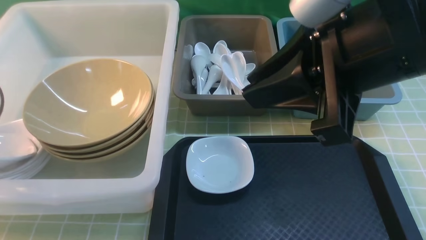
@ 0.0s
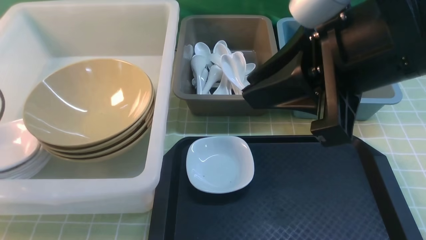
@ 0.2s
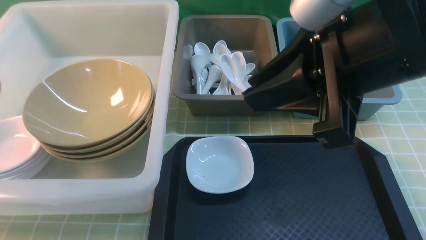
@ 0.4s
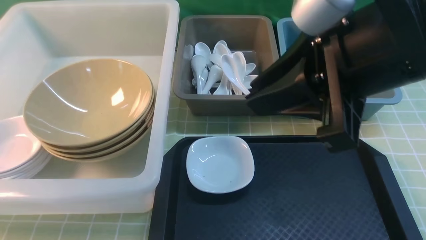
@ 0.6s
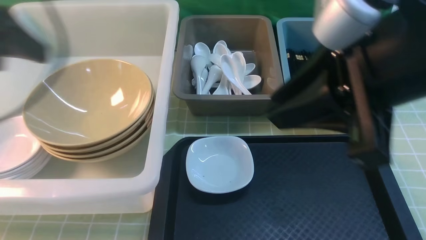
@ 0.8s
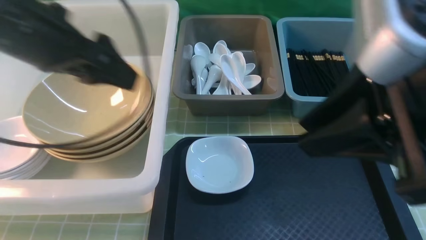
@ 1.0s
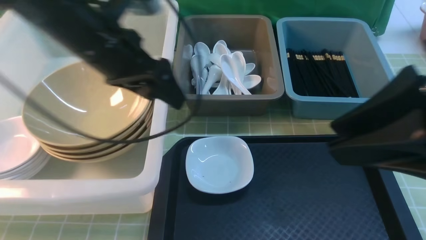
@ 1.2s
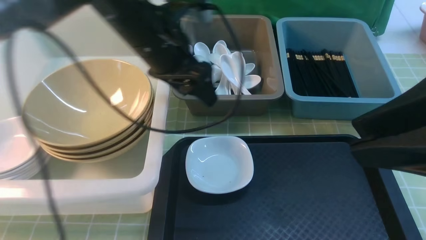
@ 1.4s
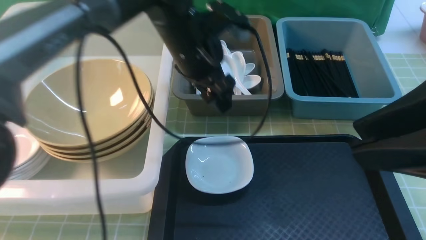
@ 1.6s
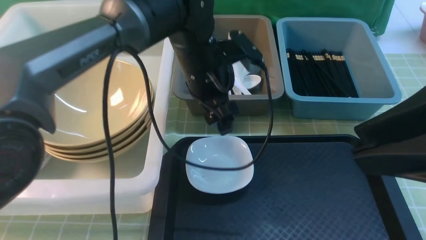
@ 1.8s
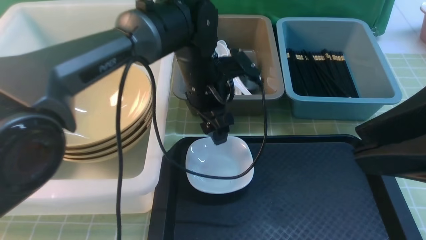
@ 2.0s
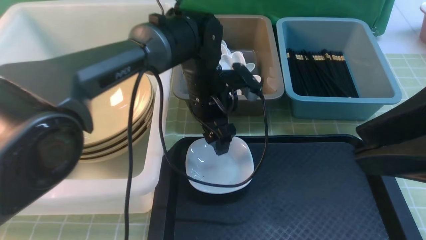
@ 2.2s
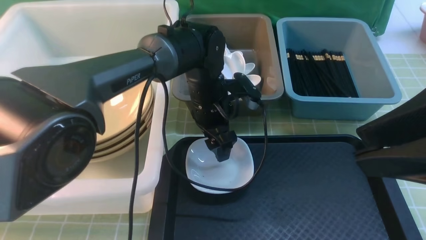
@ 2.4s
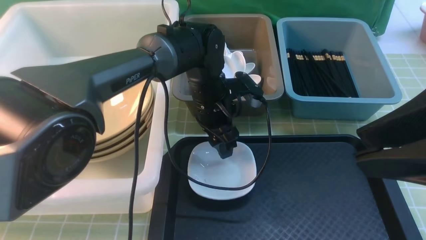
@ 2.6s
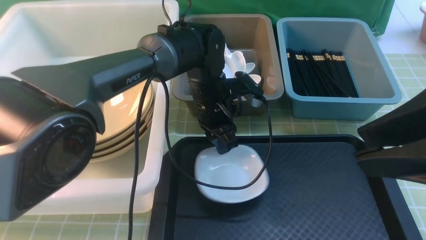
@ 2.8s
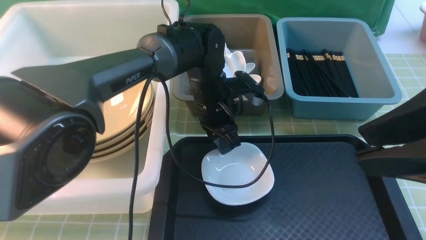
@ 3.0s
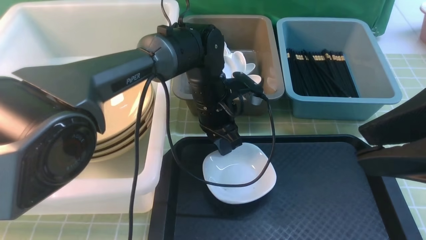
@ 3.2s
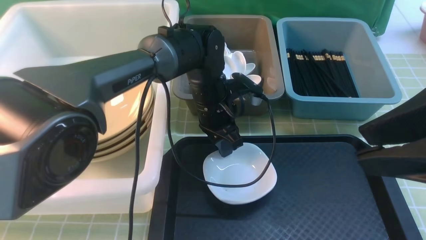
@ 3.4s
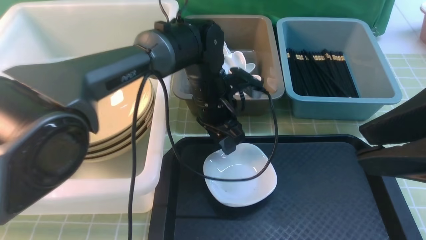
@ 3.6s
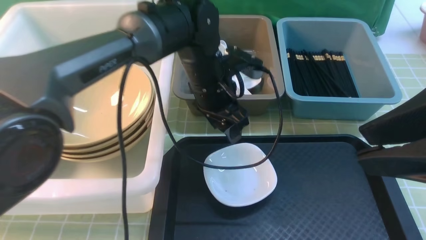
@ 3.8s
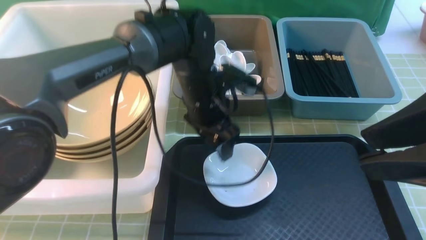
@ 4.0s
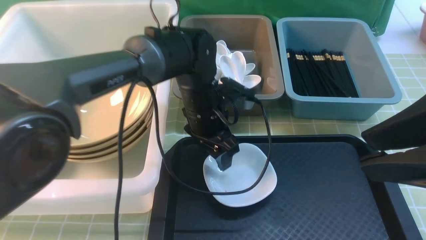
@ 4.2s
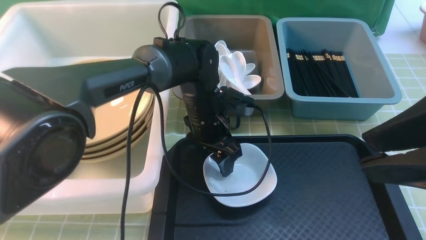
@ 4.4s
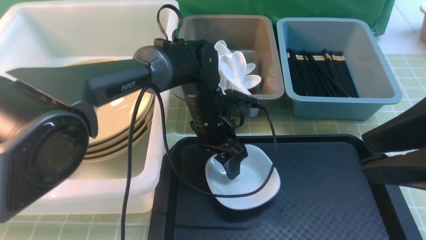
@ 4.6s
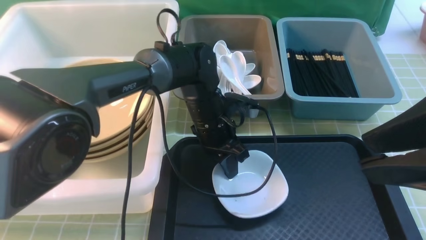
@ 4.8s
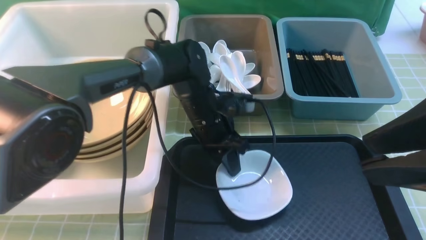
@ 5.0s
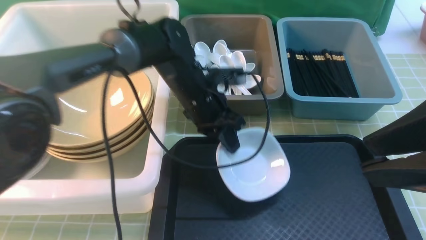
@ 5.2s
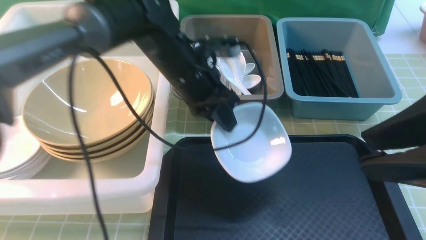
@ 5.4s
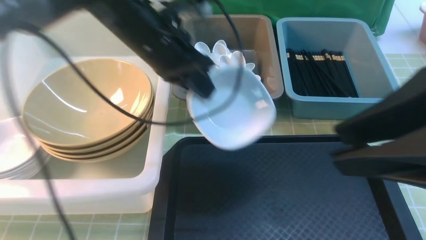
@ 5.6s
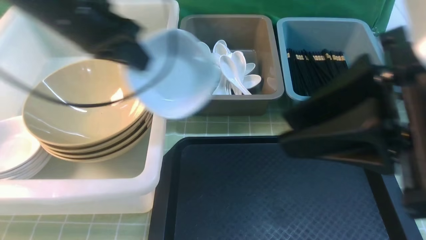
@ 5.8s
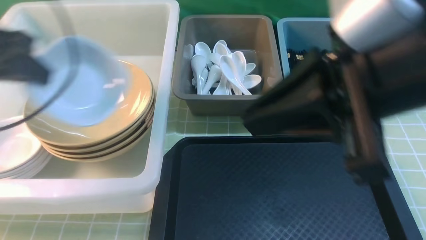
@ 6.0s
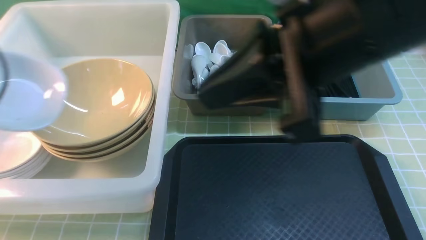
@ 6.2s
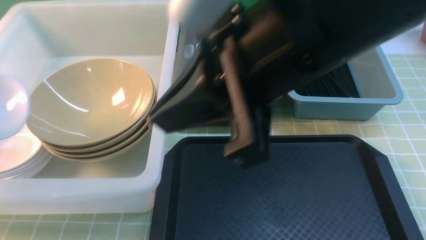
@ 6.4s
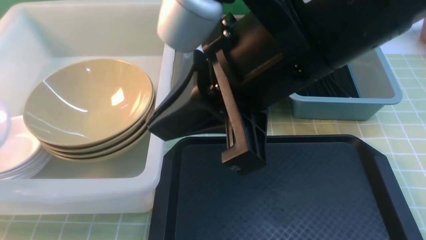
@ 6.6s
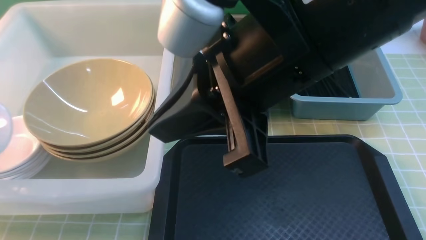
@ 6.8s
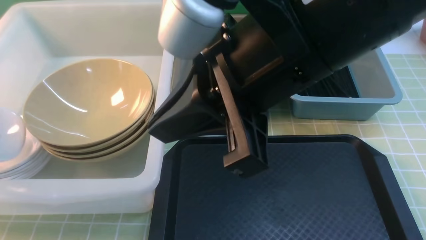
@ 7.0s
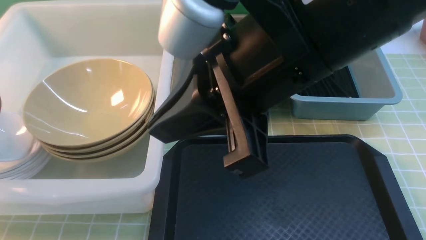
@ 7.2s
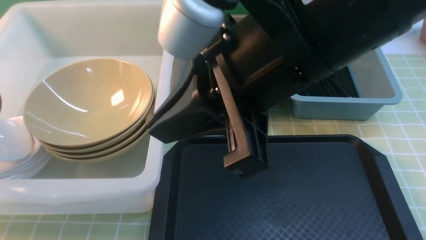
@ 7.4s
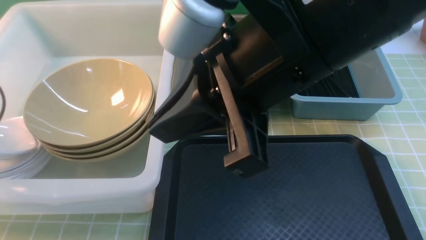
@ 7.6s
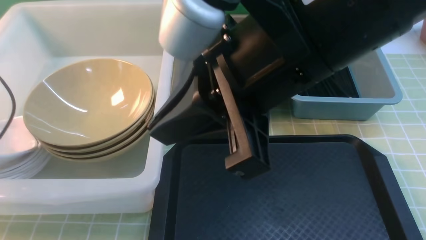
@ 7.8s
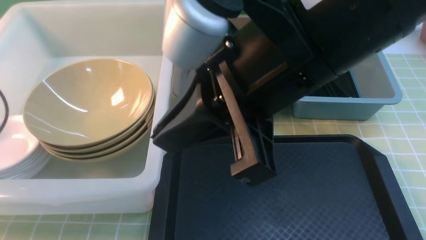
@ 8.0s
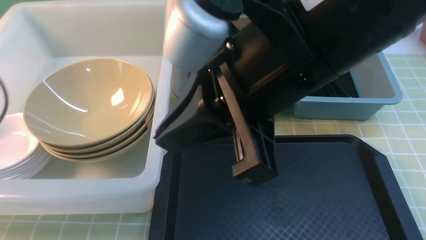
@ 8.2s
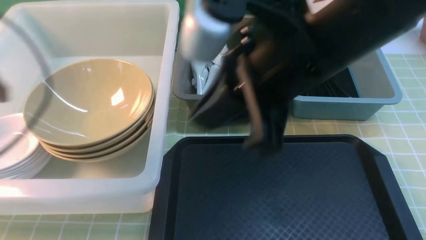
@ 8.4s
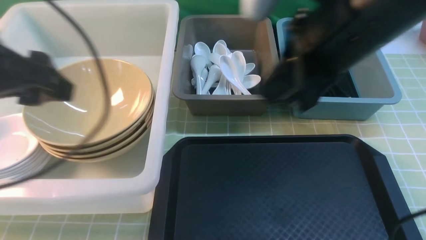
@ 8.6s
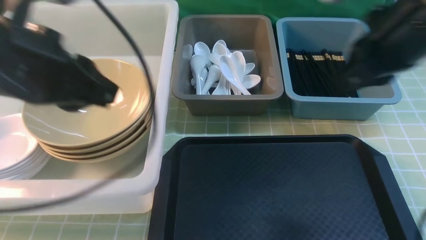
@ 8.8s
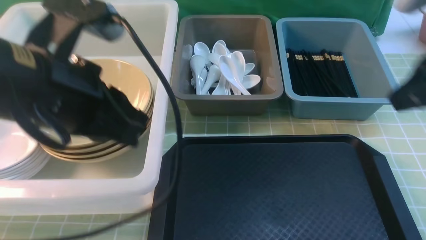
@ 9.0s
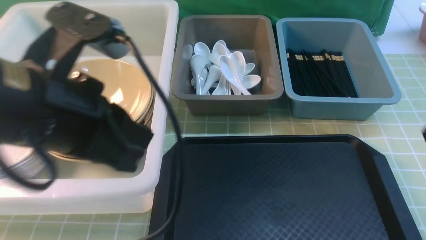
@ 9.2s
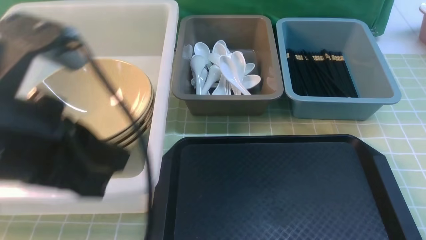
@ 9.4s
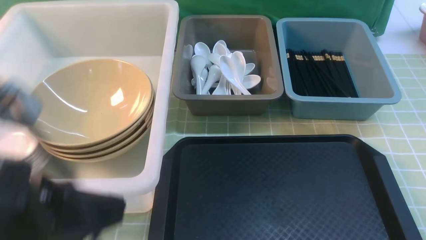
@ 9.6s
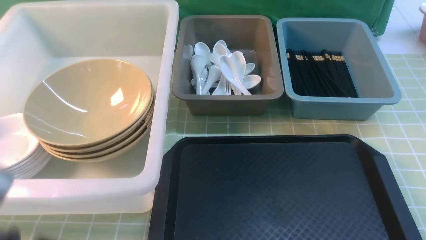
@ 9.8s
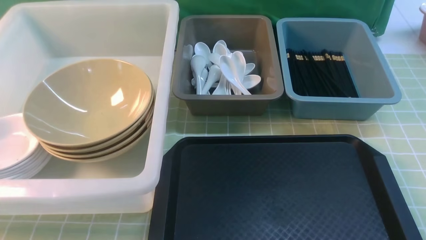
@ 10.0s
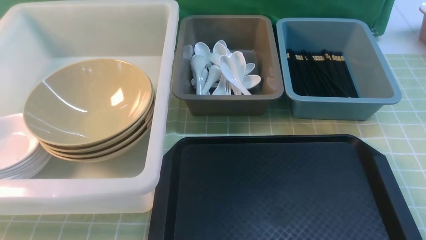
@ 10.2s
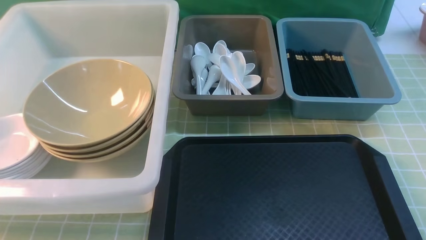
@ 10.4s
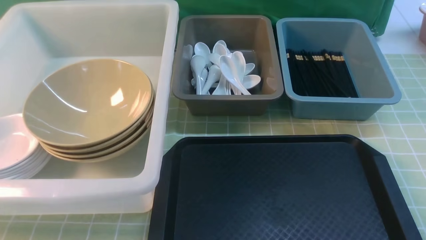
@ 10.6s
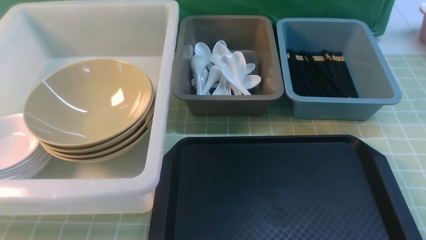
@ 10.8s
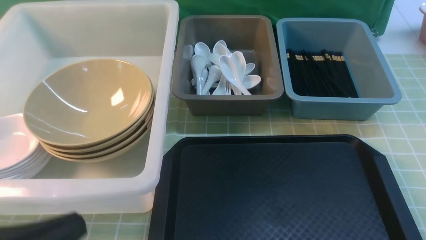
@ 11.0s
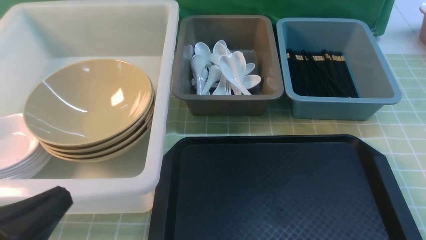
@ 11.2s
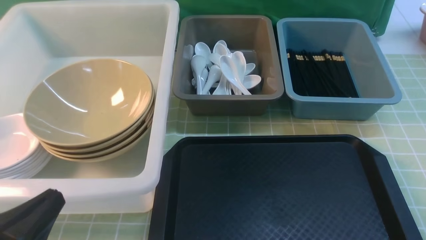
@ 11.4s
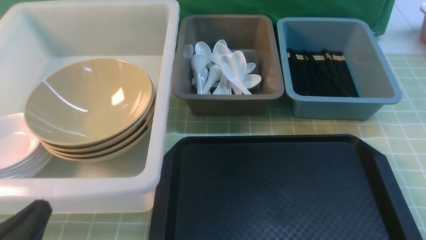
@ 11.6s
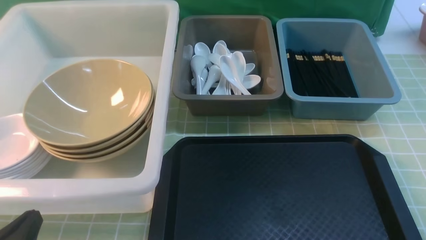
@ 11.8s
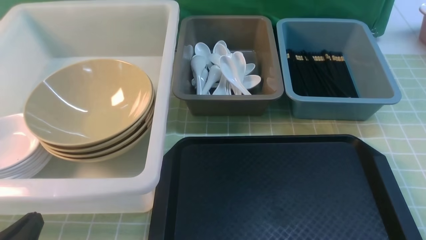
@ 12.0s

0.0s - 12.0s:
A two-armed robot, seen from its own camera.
Task of the whole recording: on green table put chopsticks spoon bowls plates into blue grey white boxes.
Step, 0.8s - 5.2s: use the left arm to grab the plate.
Step, 5.4s - 8.6s: use the left arm to put the plate into the large storage box on the left.
0.0s - 1.6s: The left gripper travels to the right by roughly 35 cm. The right gripper is displaced backward and to the right by about 10 cm.
1.6s - 3.0s: The left gripper is displaced downward by roughly 10 cm, and closes its fingers.
3.0s - 4.4s: The left gripper opens its fingers.
4.4s - 6.0s: The right gripper travels to the left and forward by about 10 cm; the left gripper moves to the left and upward, some 35 cm, and closes up.
6.0s - 7.6s: The left gripper travels to the left and downward by roughly 15 cm, and opens up. Meanwhile the right gripper goes some 5 cm to the left.
7.6s - 9.0s: Both grippers travel together to the right, approximately 25 cm. The left gripper closes its fingers.
9.0s - 10.4s: The grippers both shift backward and downward by roughly 20 cm.
10.4s - 12.0s: The left gripper moves downward, to the left and forward, roughly 15 cm.

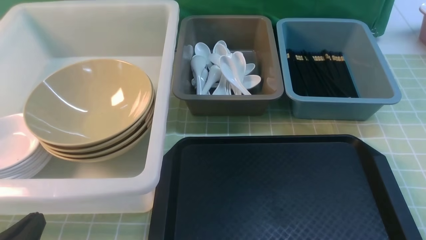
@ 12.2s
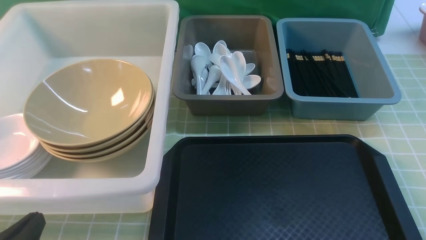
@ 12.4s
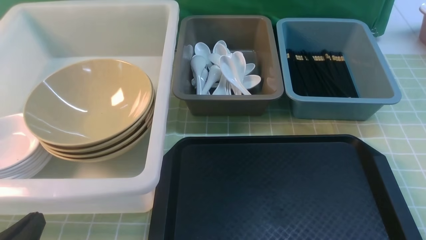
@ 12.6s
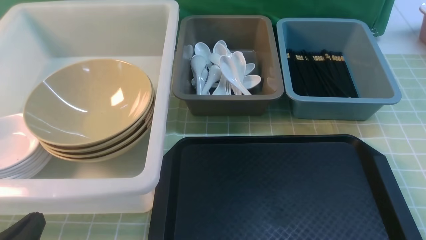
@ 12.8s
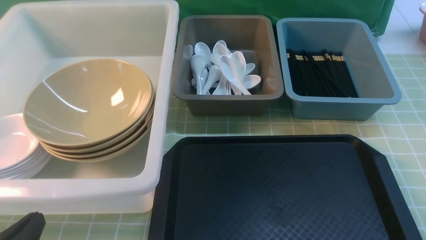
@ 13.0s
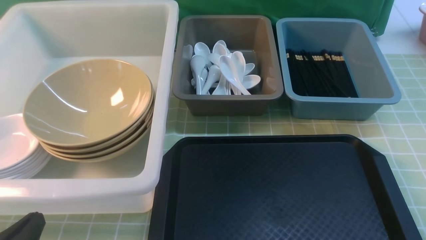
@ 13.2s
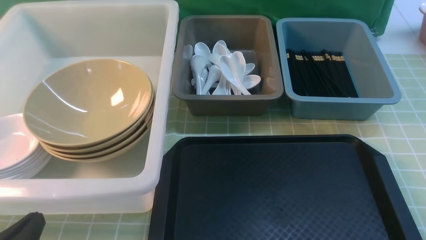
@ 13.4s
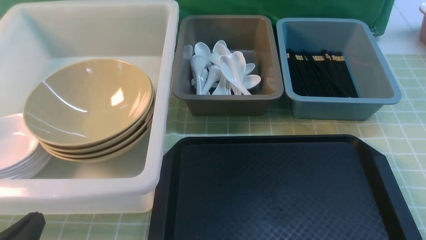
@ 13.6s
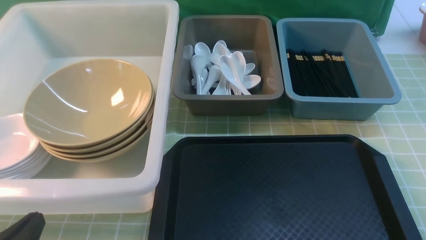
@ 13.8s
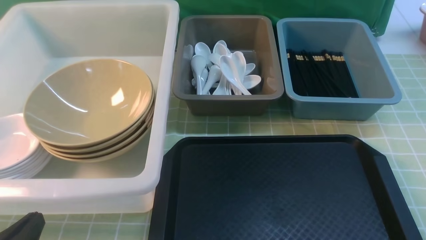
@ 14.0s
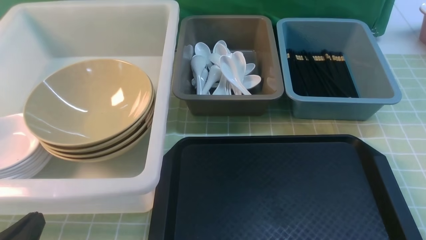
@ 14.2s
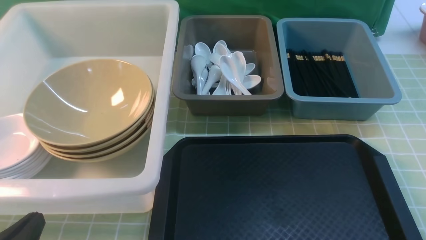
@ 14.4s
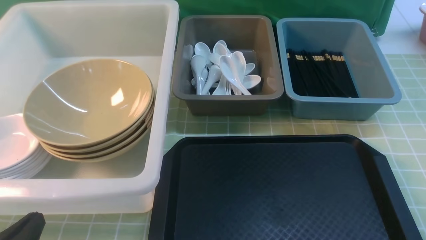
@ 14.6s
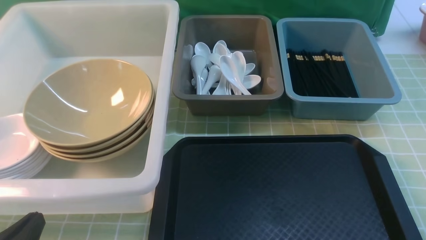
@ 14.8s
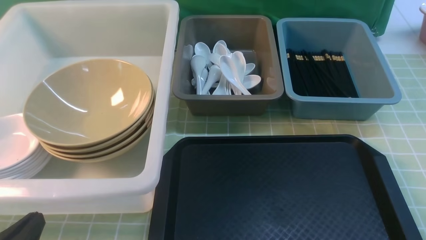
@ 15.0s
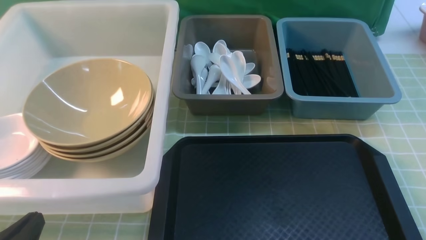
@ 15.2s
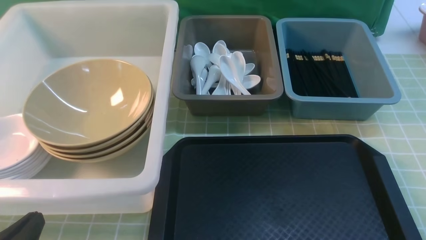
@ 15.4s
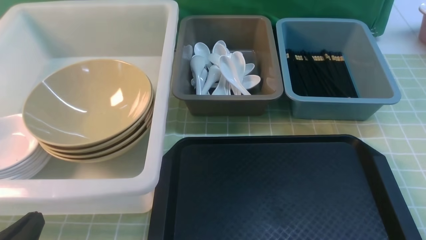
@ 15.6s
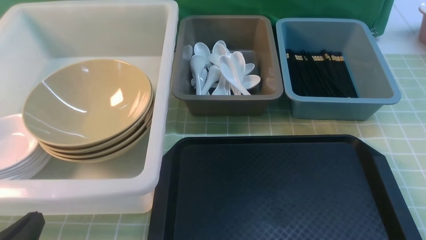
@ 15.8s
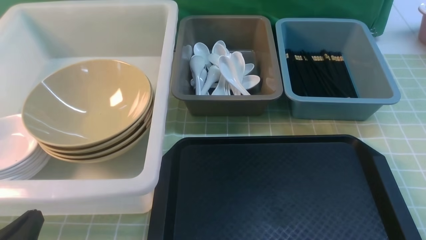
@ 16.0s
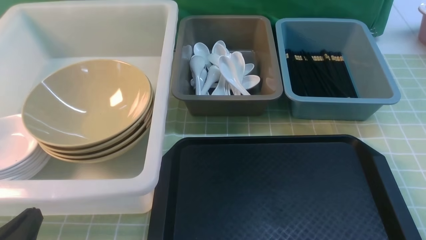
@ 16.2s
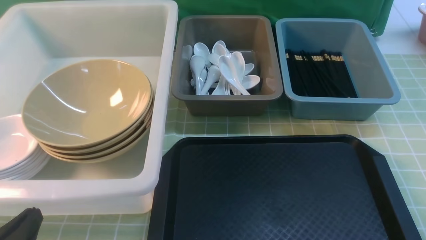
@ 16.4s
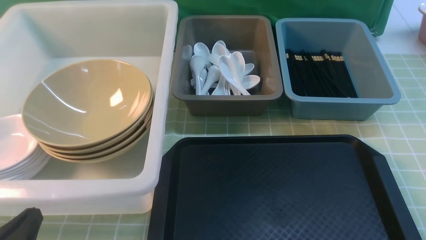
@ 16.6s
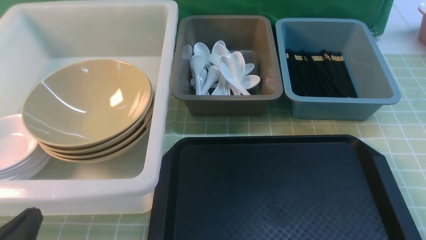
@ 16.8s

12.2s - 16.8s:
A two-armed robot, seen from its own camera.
Task of the whole recording: on green table put chopsticks spoon bowls plates into blue grey white boxes.
15.2s - 16.8s: Both grippers stay about where they are.
